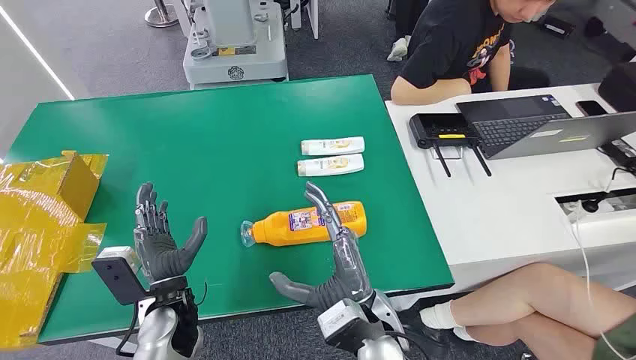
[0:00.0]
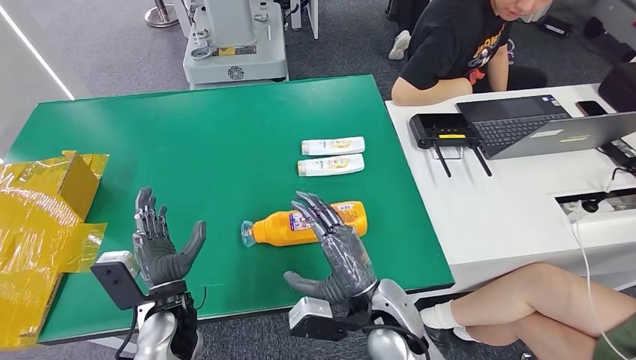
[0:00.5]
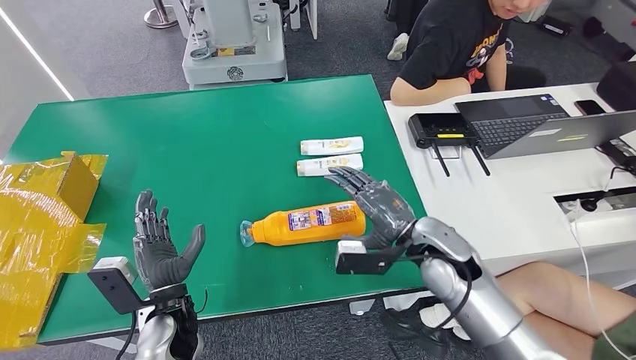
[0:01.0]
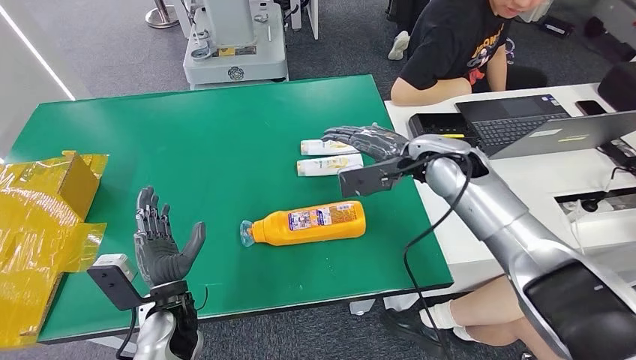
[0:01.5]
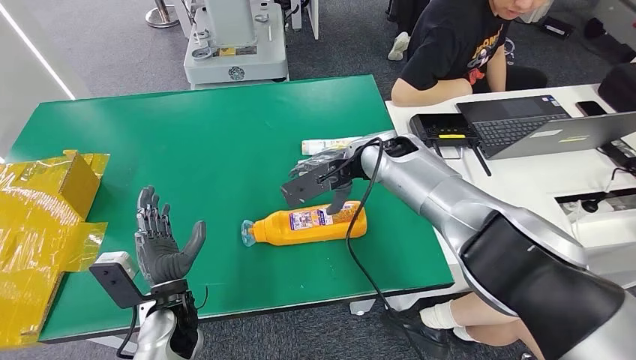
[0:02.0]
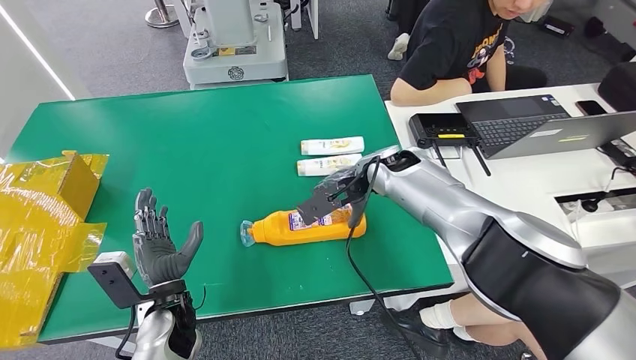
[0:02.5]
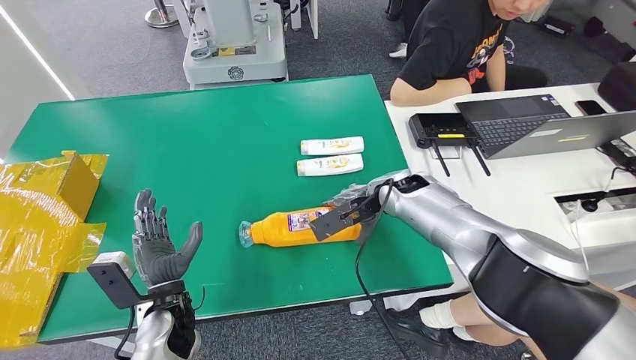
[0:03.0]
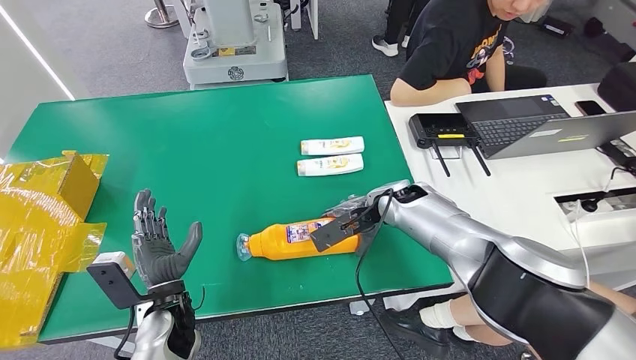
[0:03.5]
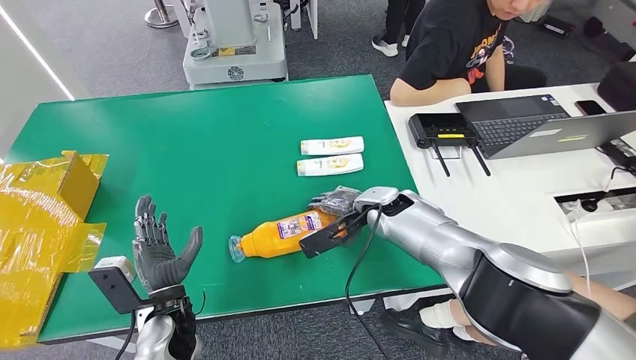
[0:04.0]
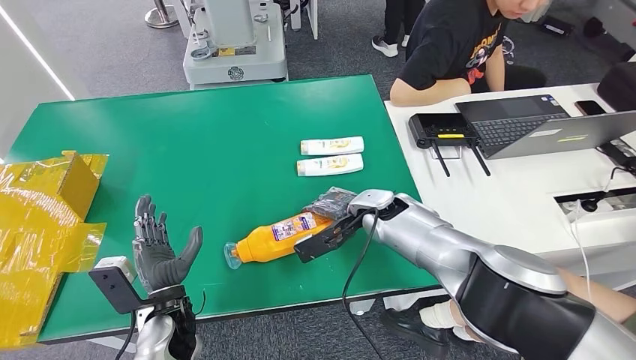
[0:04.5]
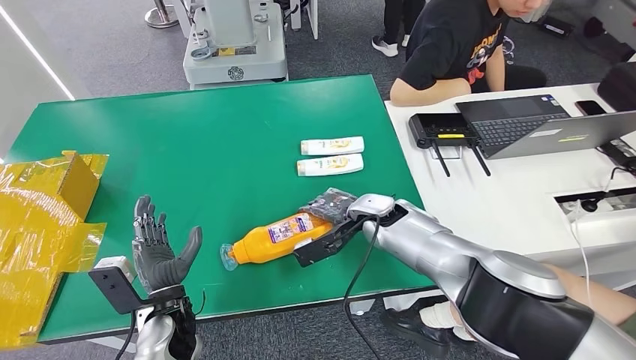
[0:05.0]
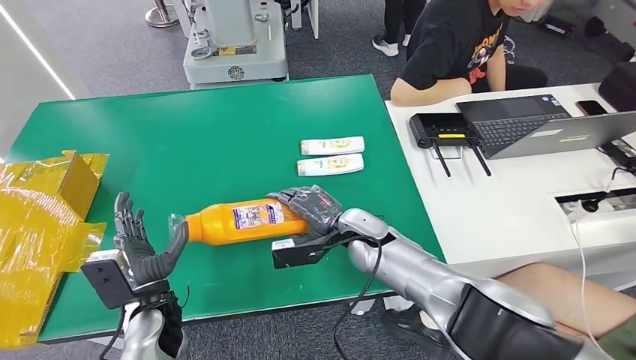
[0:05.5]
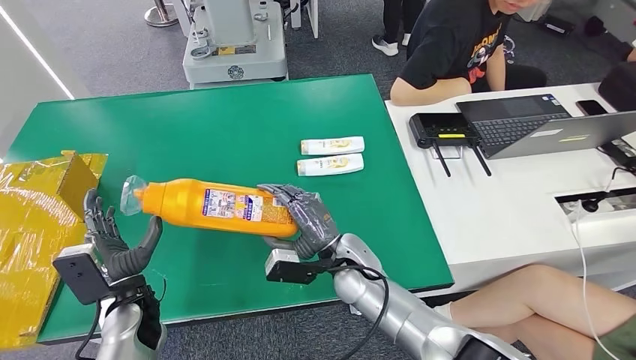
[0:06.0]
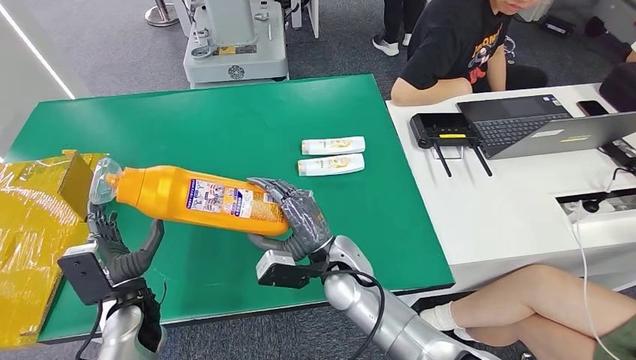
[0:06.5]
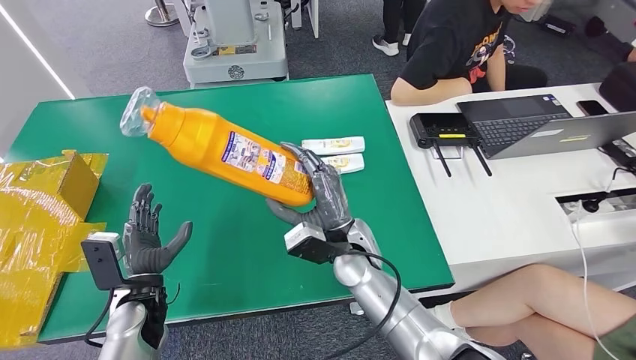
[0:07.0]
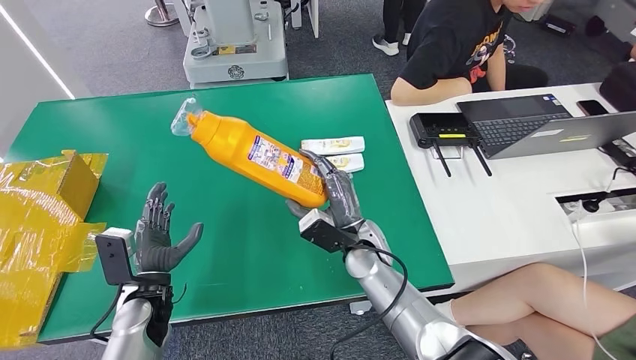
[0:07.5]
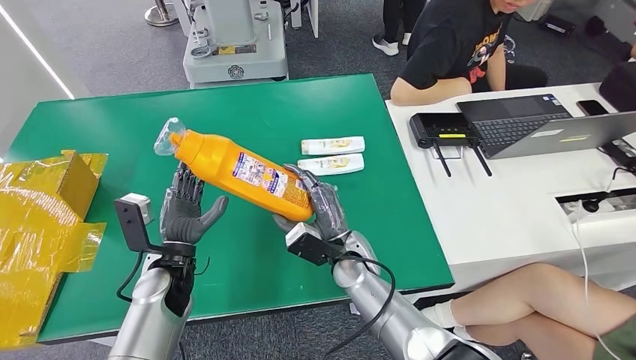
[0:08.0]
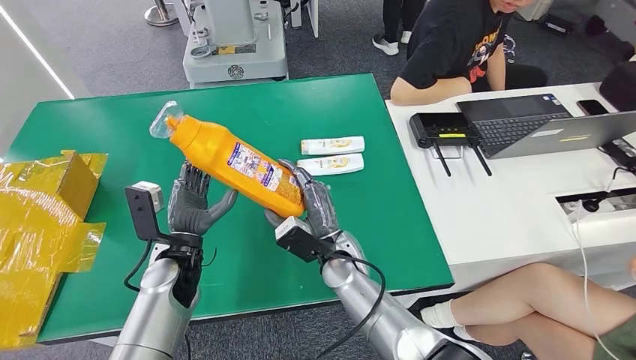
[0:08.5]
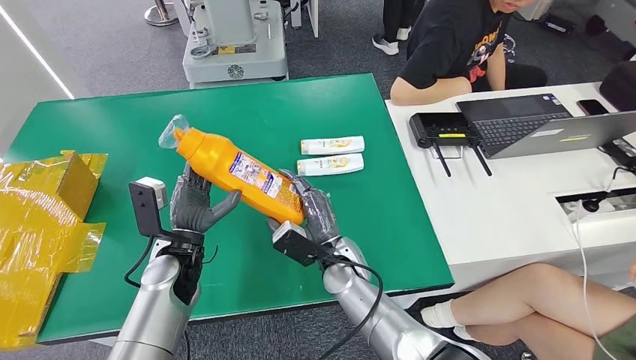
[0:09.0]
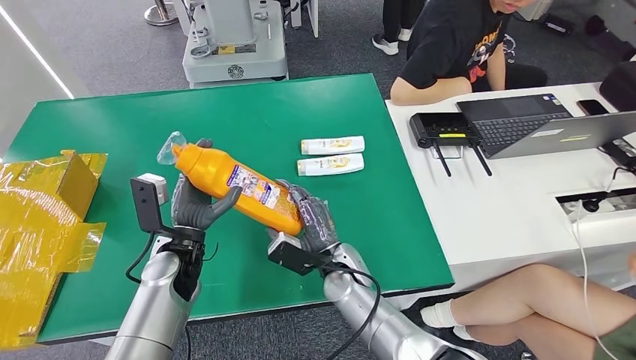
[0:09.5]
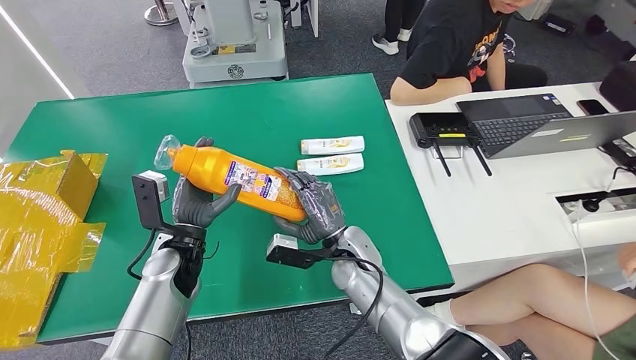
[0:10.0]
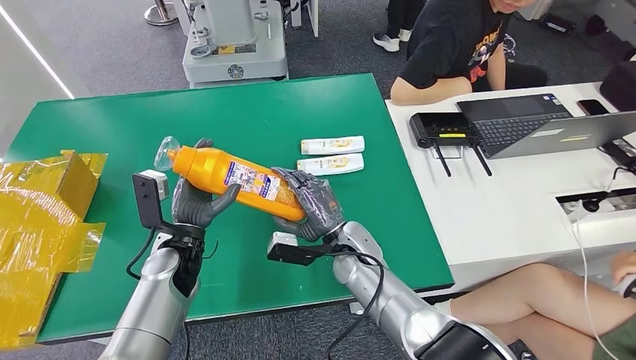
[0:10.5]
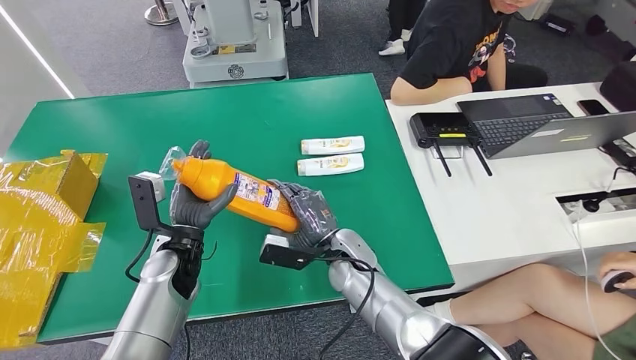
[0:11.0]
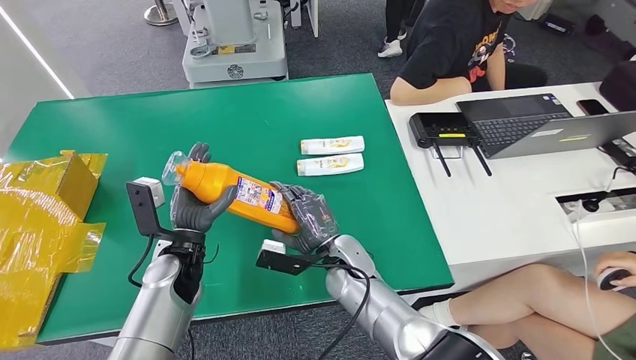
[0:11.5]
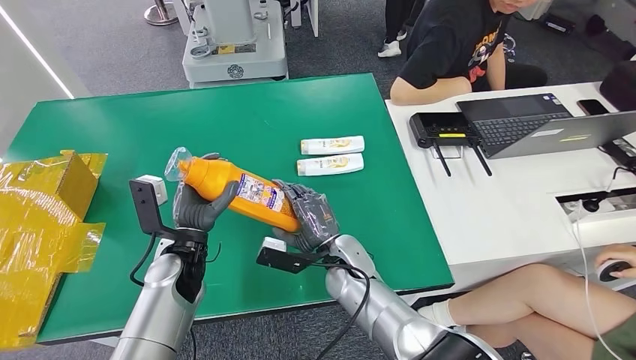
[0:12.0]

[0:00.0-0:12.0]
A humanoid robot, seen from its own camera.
Step, 0:00.0 to 0:05.5: Pick up the bottle from the table.
0:02.0 to 0:04.0: The right hand travels downward by about 10 cm.
0:06.0 to 0:08.0: The left hand is displaced to the right by some 5 cm.
0:10.0 to 0:12.0: There are only small adjustments of the hands.

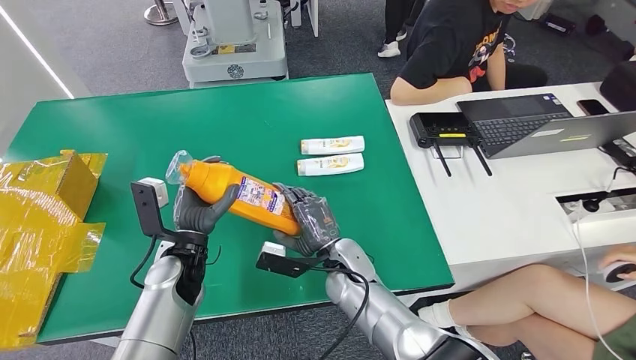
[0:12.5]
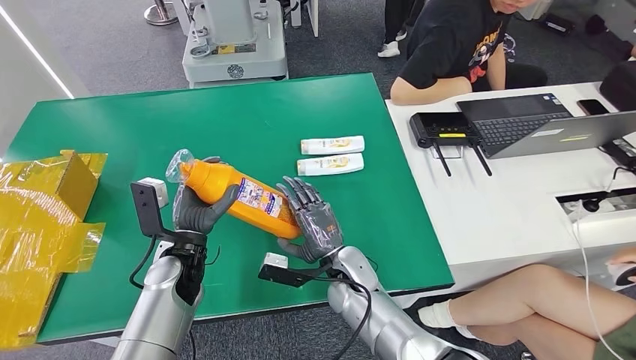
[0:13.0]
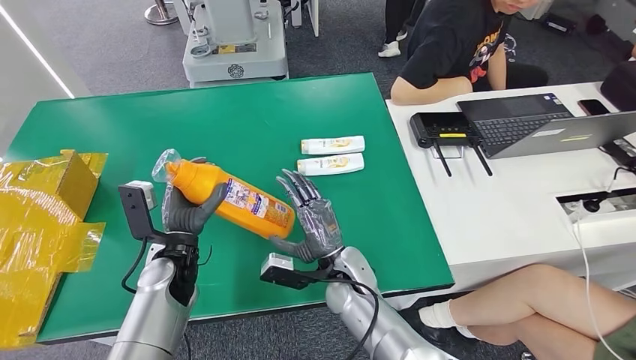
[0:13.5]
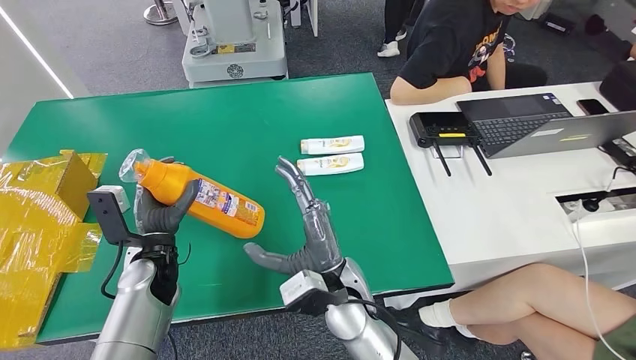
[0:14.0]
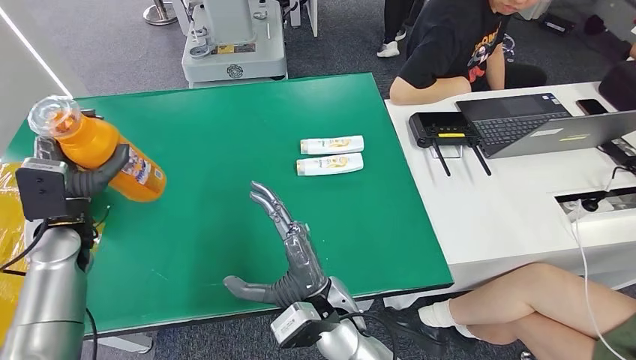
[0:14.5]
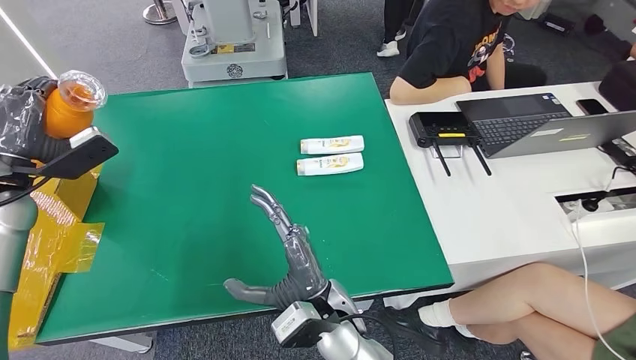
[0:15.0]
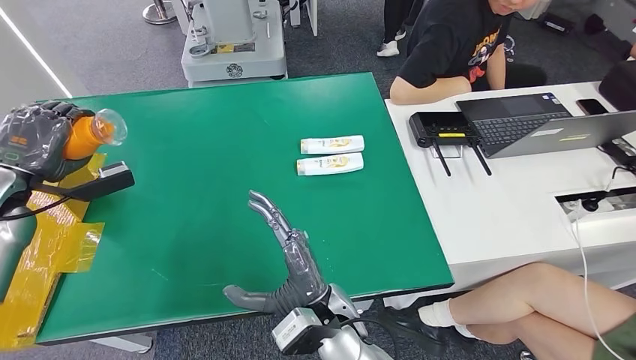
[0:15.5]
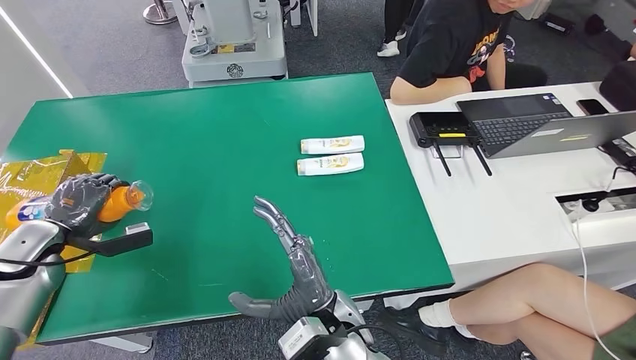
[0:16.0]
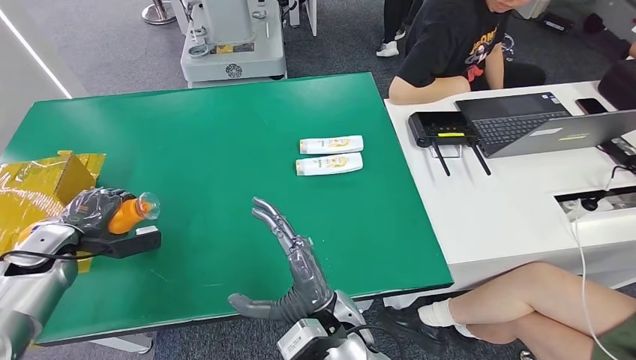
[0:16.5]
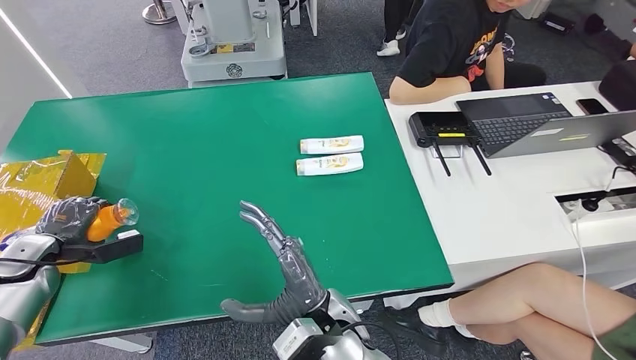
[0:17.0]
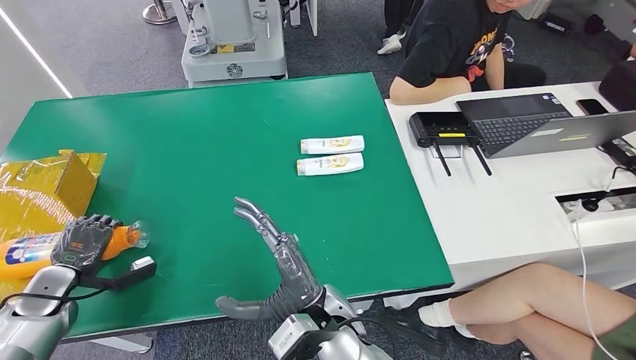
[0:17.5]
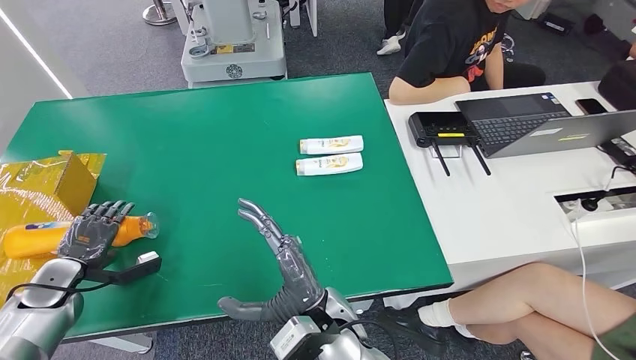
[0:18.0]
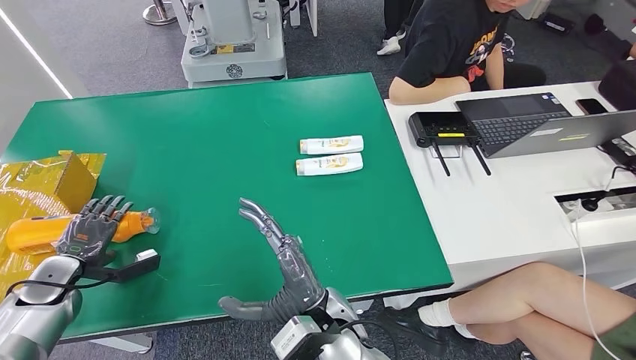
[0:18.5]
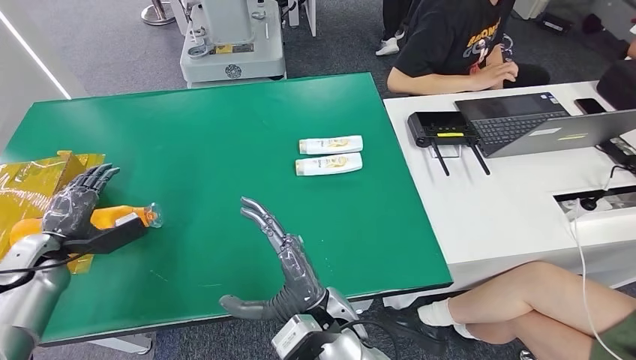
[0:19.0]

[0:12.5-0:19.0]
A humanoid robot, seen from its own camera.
Step, 0:12.5 to 0:19.0: Turn the bottle to the front side.
0:14.5 to 0:17.0: The left hand goes approximately 15 cm to the left and downward.
